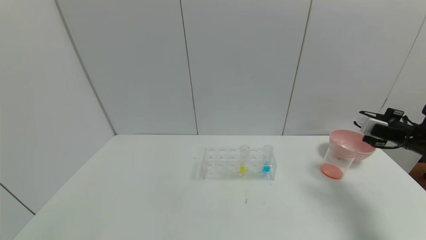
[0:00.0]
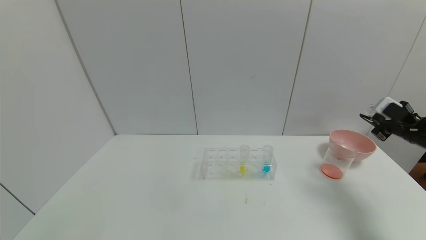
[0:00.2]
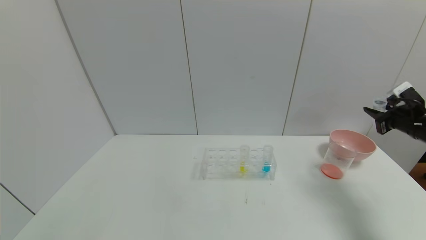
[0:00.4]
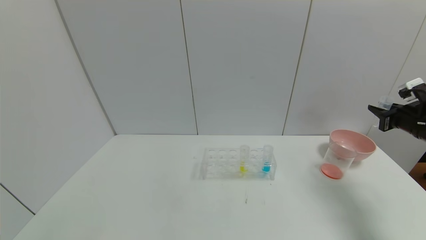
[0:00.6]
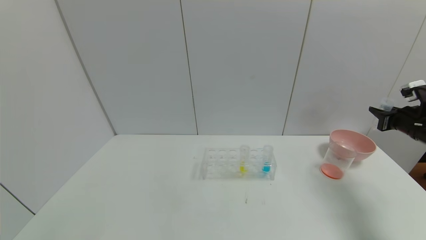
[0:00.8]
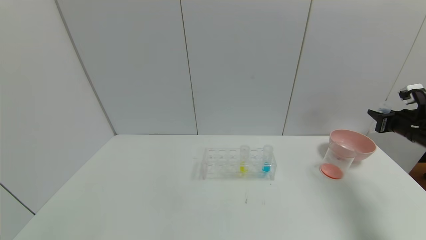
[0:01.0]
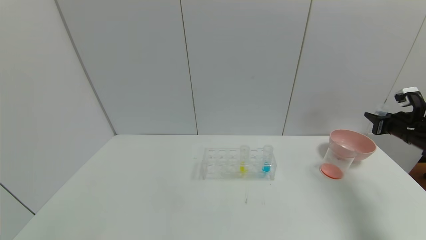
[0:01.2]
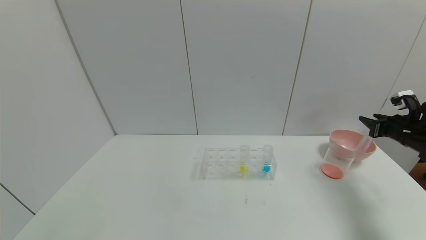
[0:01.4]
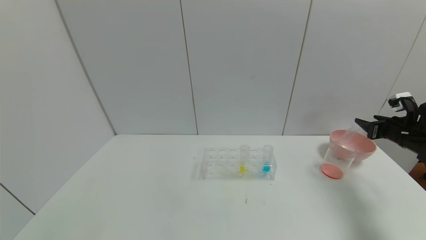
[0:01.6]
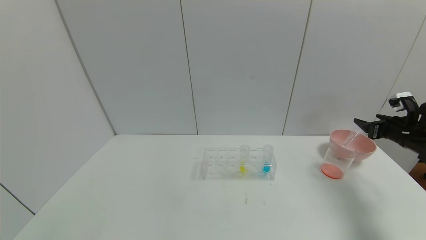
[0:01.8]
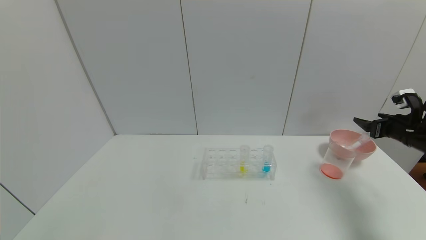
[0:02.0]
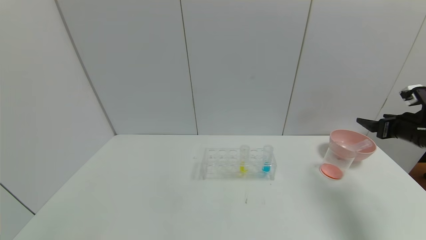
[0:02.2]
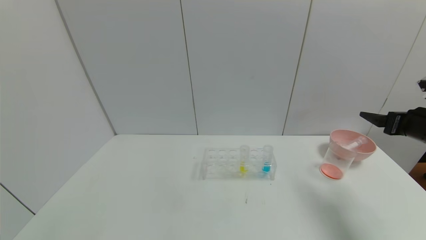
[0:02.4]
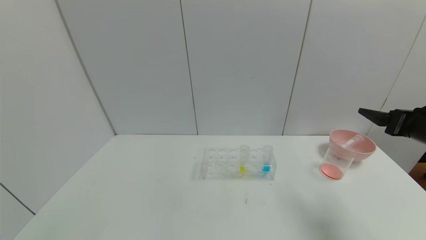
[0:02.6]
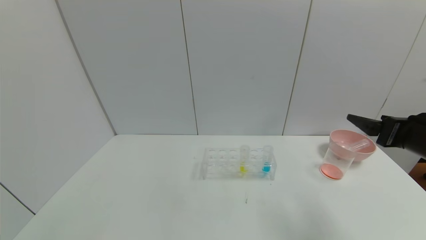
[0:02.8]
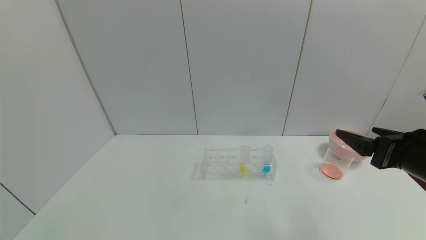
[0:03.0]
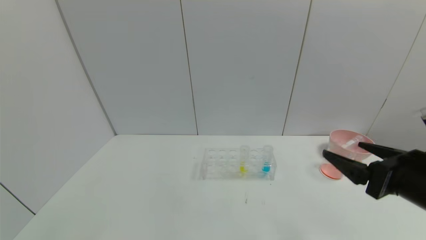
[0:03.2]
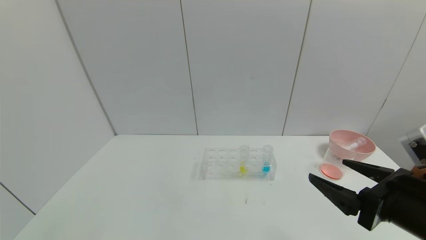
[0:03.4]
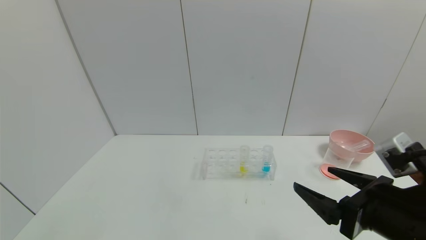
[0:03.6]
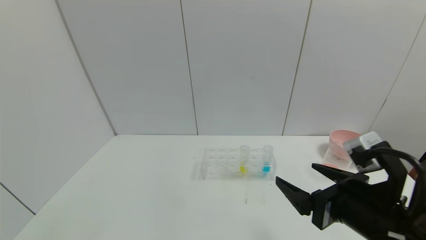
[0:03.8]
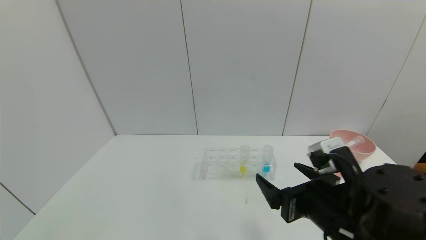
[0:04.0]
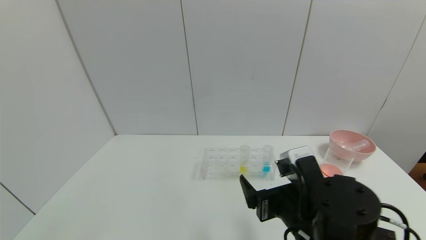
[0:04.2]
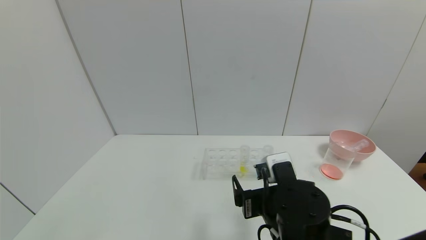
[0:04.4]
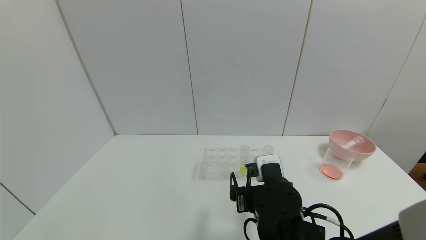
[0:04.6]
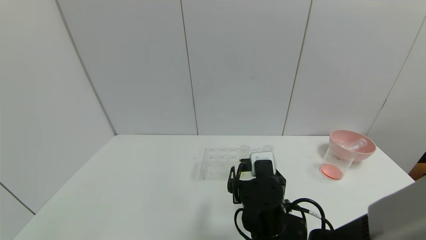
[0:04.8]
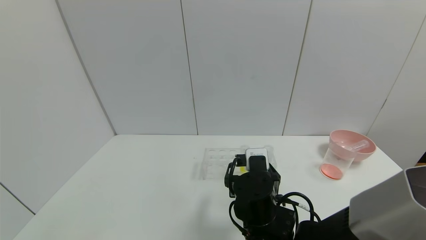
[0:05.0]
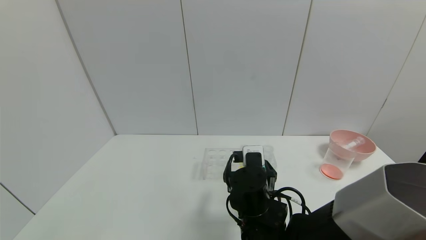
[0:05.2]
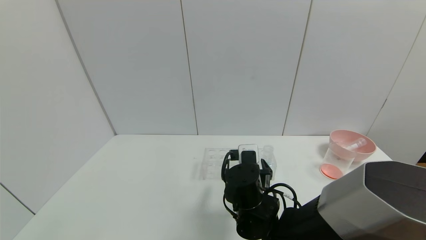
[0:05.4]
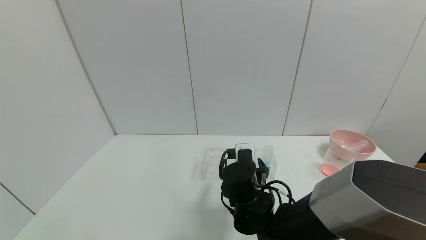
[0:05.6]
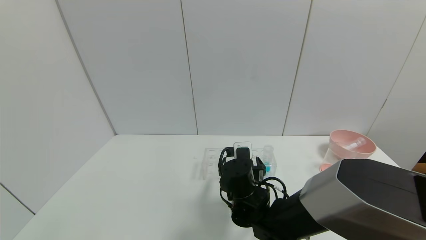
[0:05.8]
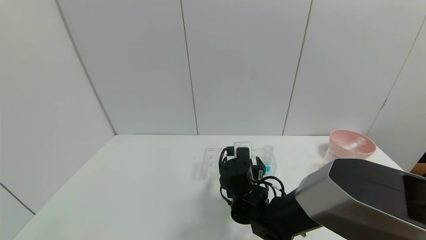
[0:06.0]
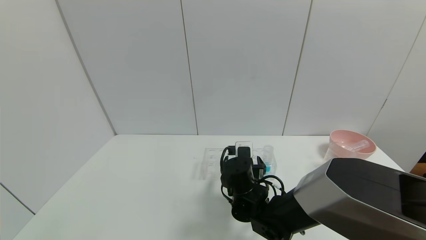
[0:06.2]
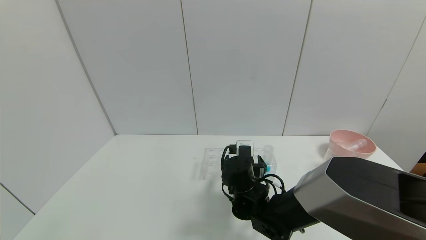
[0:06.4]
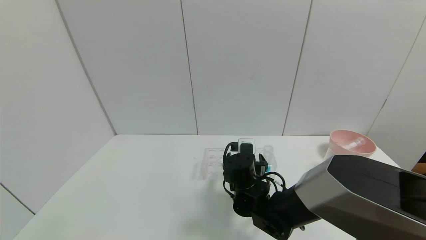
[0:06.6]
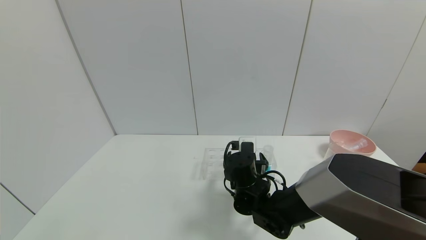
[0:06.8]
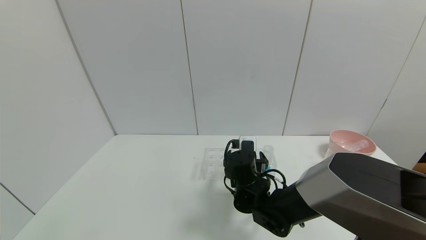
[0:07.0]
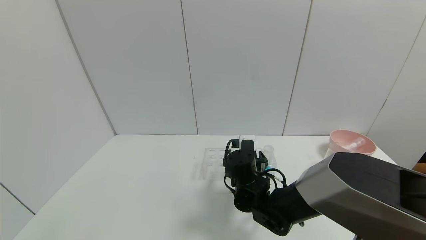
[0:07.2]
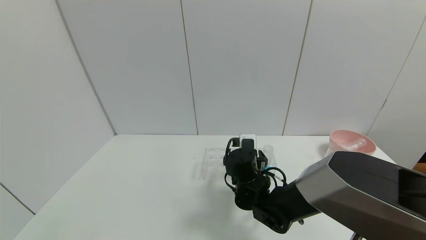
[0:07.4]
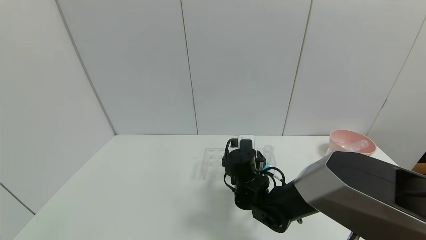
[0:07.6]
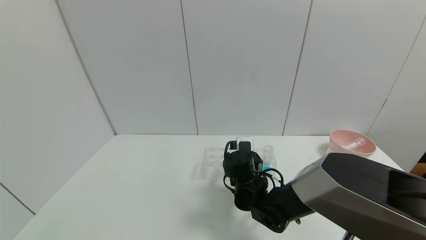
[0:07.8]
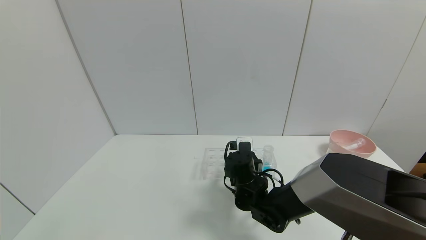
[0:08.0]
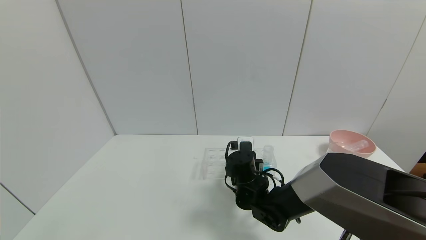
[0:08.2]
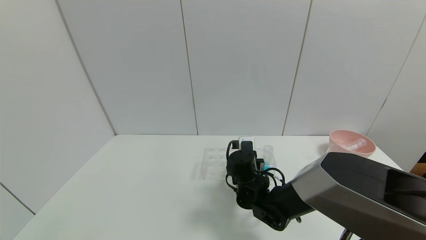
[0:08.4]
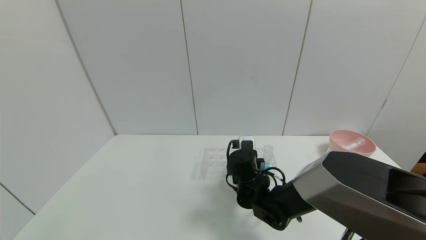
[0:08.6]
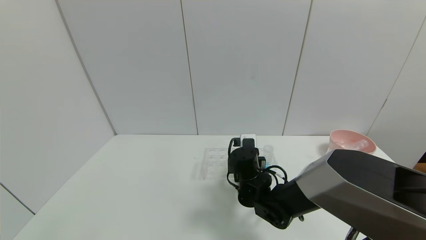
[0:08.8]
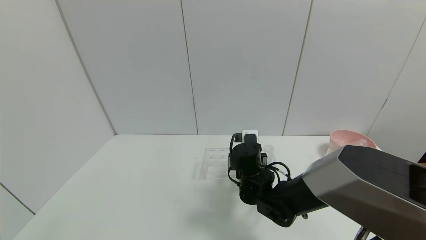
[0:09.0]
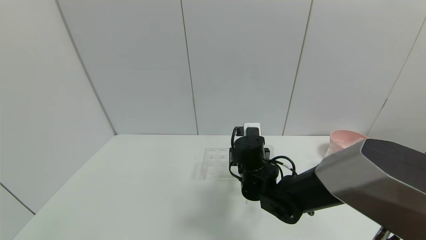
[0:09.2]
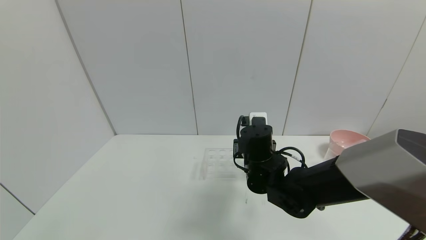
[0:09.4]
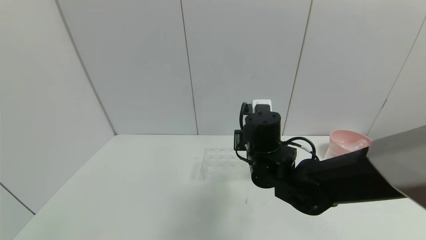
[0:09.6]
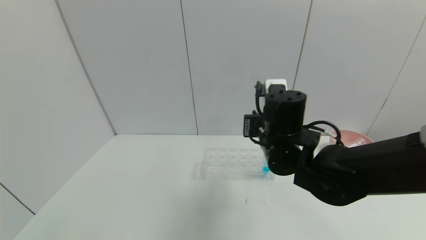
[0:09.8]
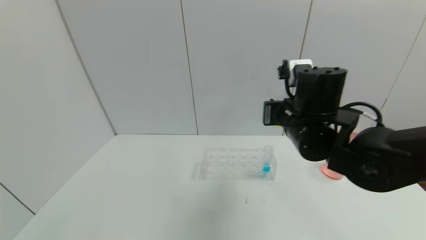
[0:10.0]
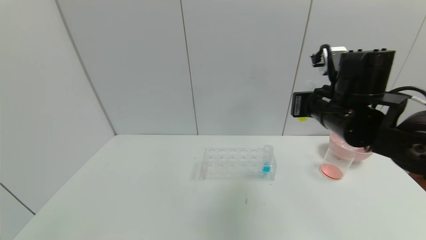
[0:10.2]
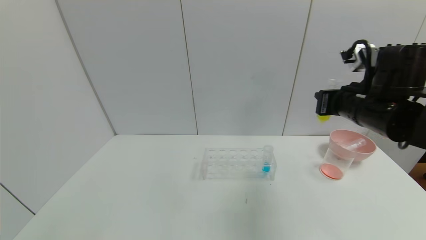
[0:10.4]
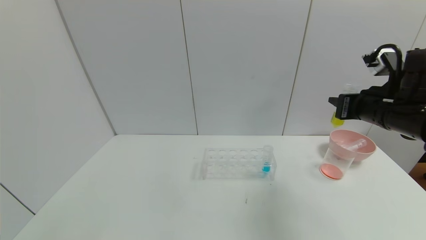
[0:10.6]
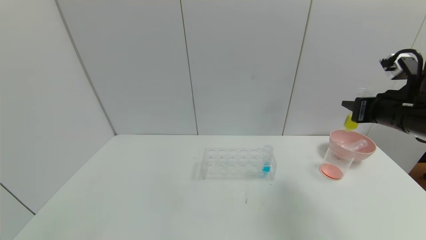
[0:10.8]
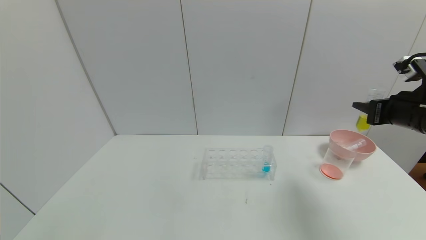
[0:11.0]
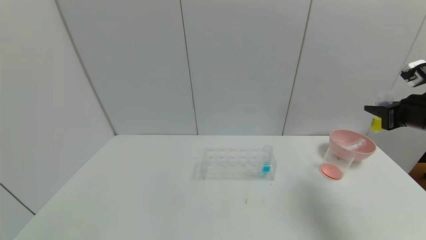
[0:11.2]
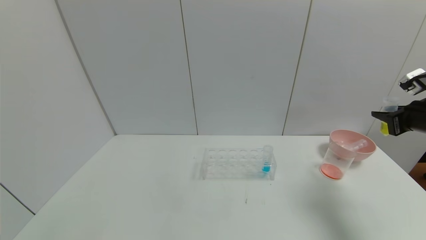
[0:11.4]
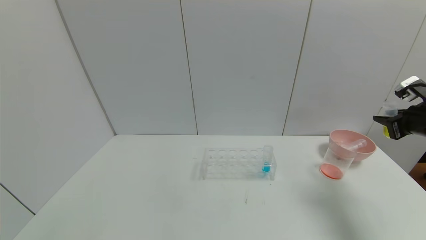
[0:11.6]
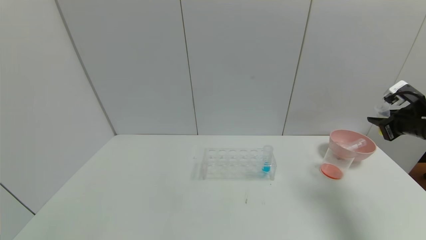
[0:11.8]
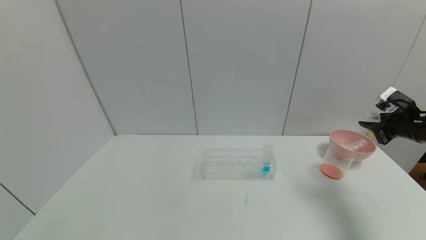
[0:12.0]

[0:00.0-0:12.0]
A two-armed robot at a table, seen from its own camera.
Task of the whole recording: pick up the test tube with yellow pigment and the test tube with red pigment by grippers and pour them into the beaker.
Step, 0:01.0 to 0:02.0: Place the test tube into the bowl with right gripper.
Step, 0:02.2 to 0:10.6: Pick up the test tube containing the yellow reagent with right gripper.
0:00.0 to 0:01.6: The right gripper opens up.
0:01.6 to 0:03.0: The right gripper goes approximately 25 cm backward, to the left and upward, and opens up.
0:03.0 to 0:04.4: The right gripper moves to the left and downward, approximately 25 cm.
0:04.4 to 0:06.0: The right gripper travels forward, downward and to the left by approximately 15 cm.
0:06.0 to 0:07.6: There are only small adjustments of the grippers.
0:07.6 to 0:09.0: The right gripper closes.
0:09.0 to 0:10.4: The right gripper moves to the right and upward, approximately 25 cm.
0:10.4 to 0:12.0: The right gripper shifts about 20 cm to the right.

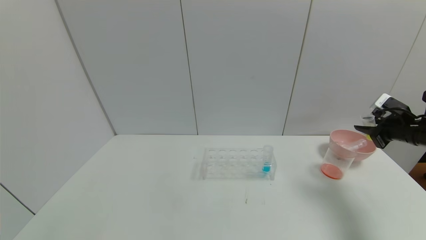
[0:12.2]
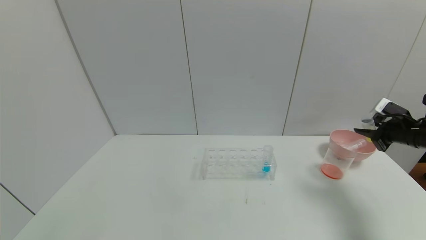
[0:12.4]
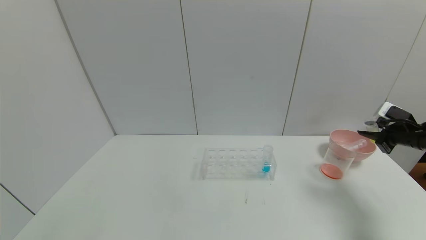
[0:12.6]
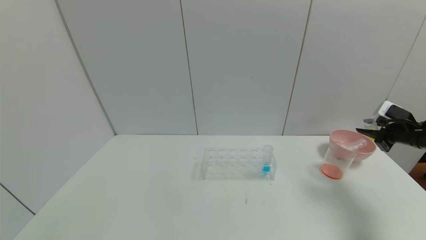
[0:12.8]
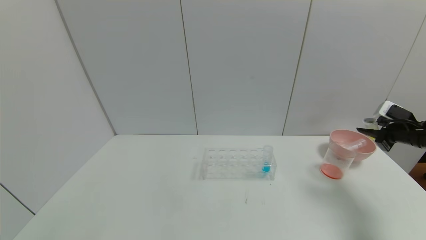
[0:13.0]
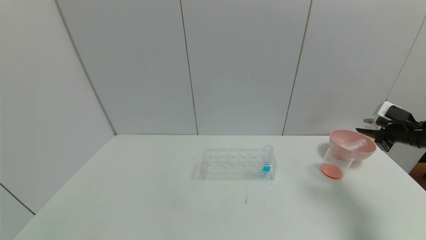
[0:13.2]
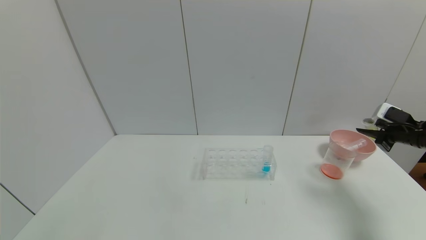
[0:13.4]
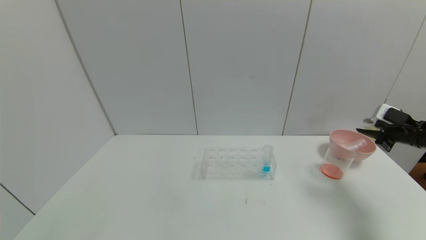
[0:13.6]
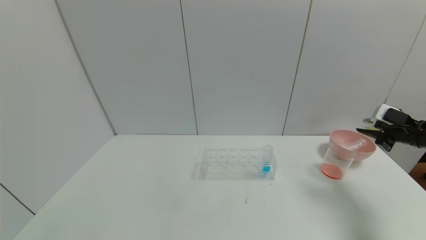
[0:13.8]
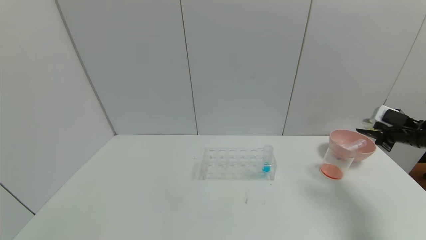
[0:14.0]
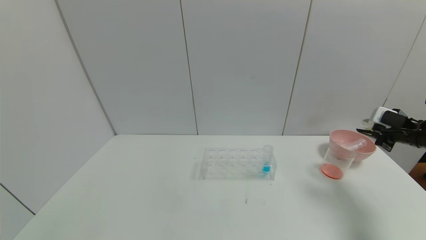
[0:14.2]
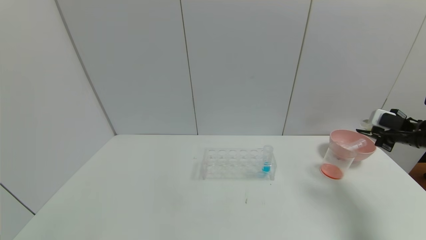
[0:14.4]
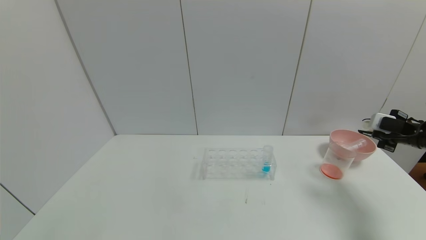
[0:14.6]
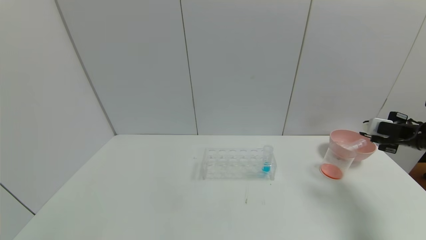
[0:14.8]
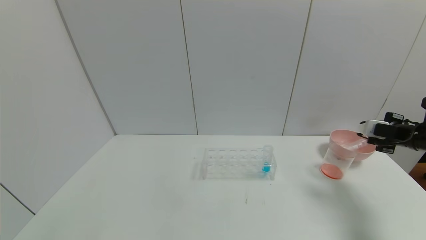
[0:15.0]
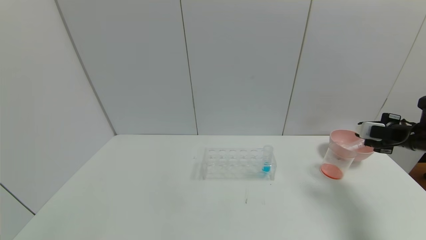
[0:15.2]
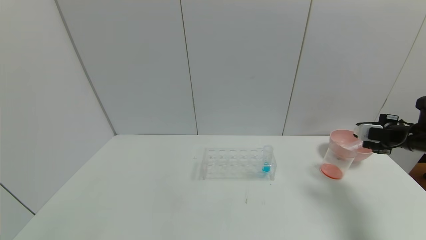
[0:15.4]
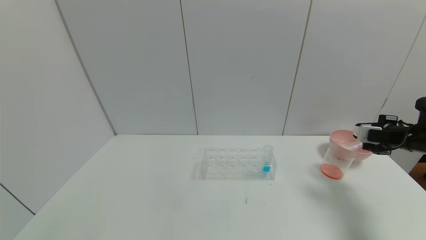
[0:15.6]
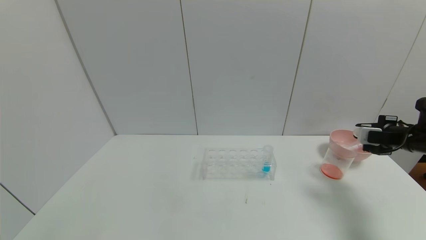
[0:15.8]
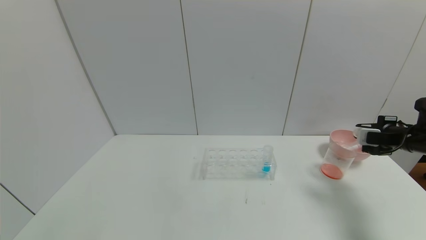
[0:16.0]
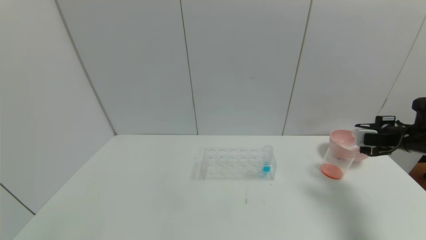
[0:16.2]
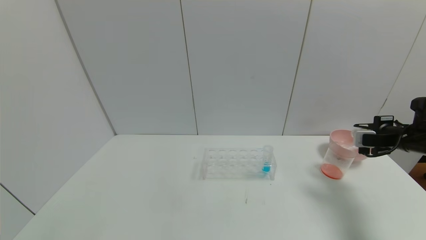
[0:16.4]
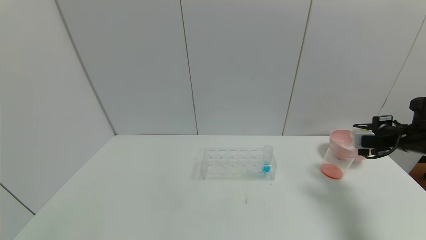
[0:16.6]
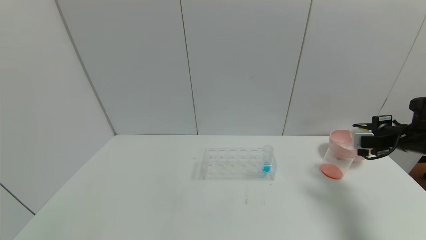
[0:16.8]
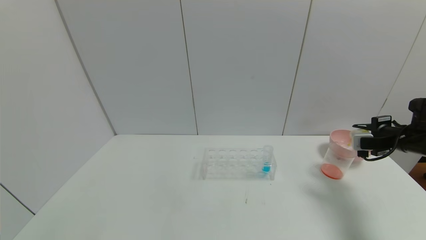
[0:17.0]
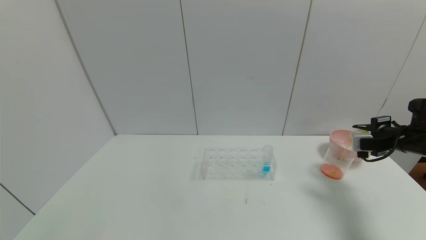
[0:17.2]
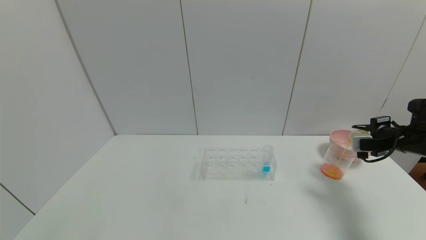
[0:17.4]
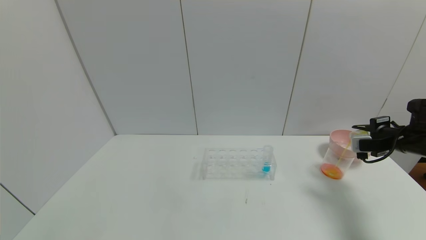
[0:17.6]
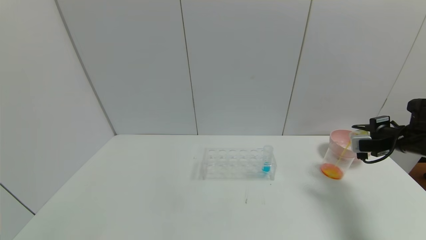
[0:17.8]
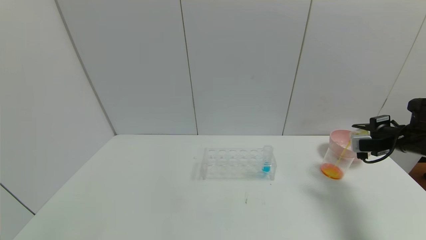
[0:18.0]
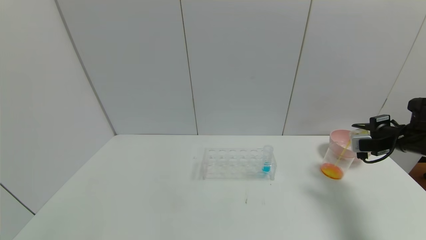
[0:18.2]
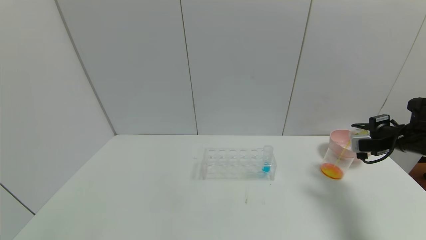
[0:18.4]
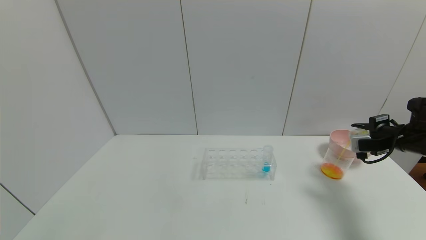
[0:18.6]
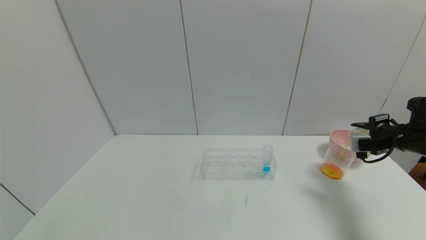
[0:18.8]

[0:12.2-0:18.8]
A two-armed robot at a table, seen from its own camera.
Task of the whole recording: pick up the test tube with yellow pigment and the test tube with red pigment by grippers and pour them into the beaker.
0:12.2 to 0:13.8: There are only small adjustments of the grippers.
0:15.4 to 0:17.2: There are only small adjustments of the grippers.
0:17.2 to 0:18.8: Neither gripper changes place.
